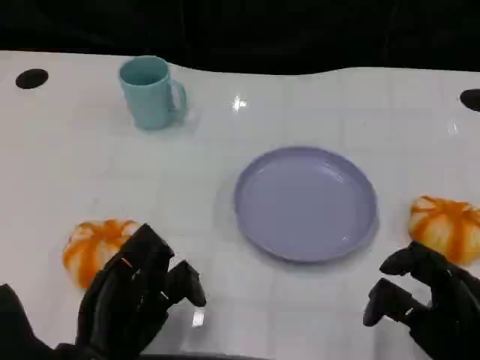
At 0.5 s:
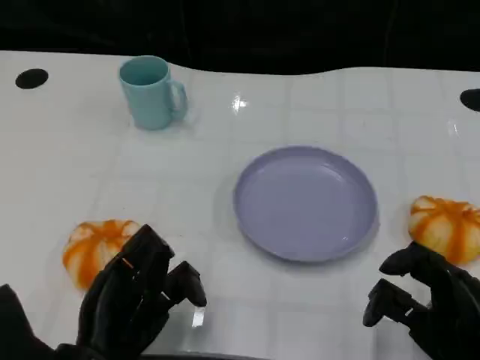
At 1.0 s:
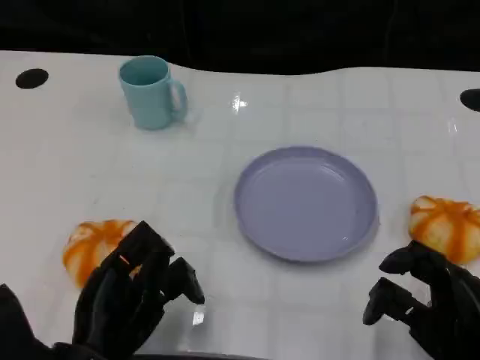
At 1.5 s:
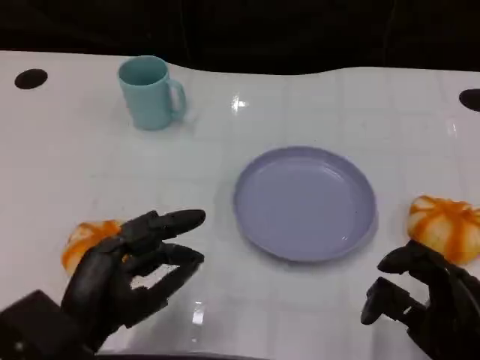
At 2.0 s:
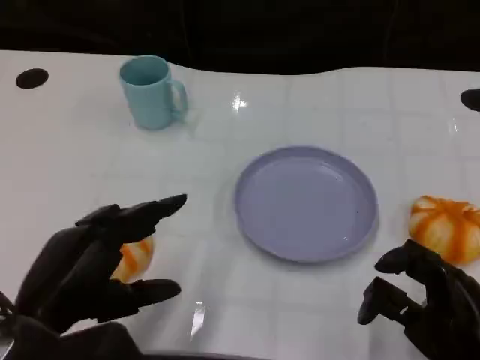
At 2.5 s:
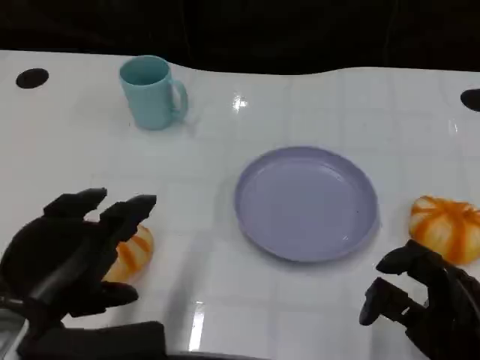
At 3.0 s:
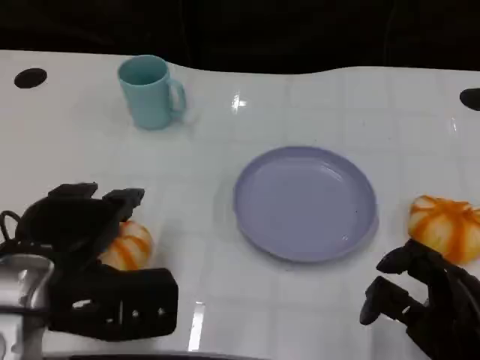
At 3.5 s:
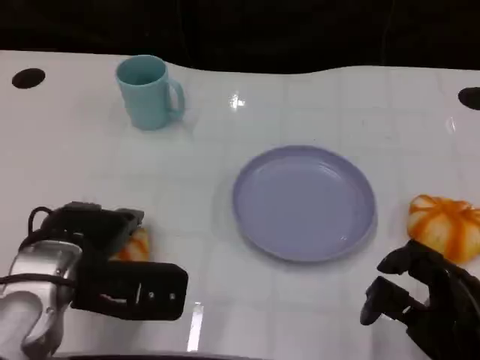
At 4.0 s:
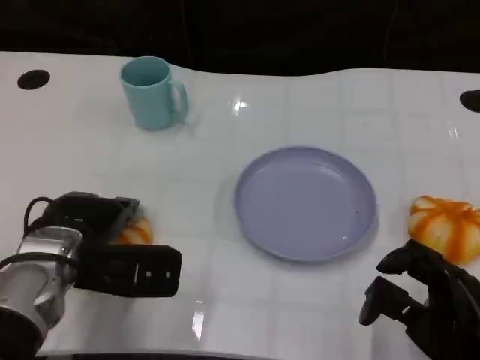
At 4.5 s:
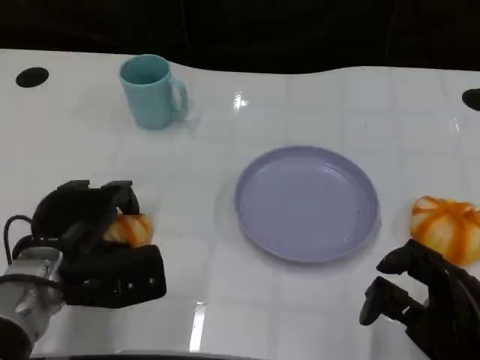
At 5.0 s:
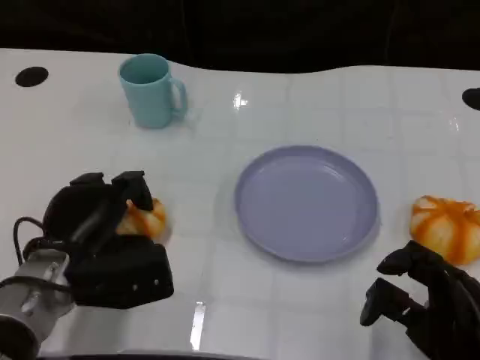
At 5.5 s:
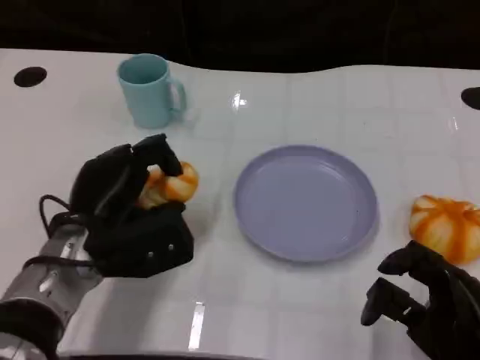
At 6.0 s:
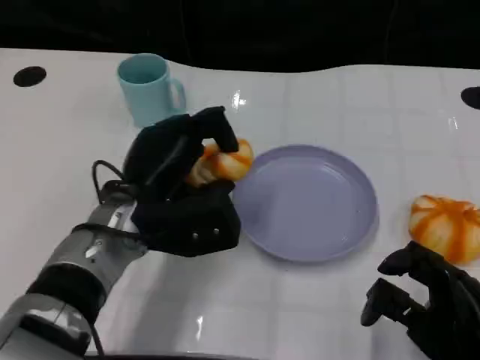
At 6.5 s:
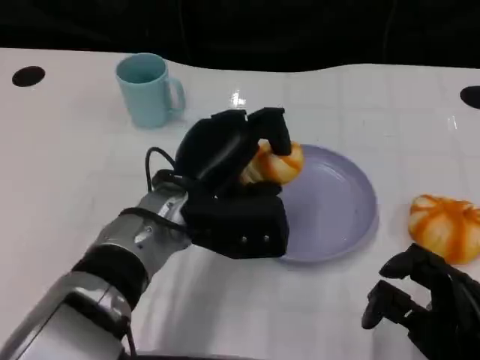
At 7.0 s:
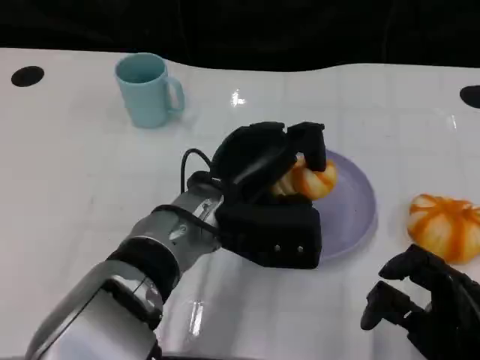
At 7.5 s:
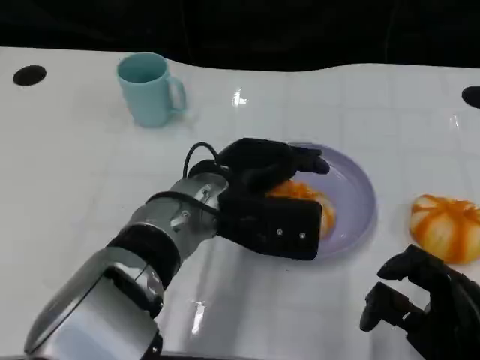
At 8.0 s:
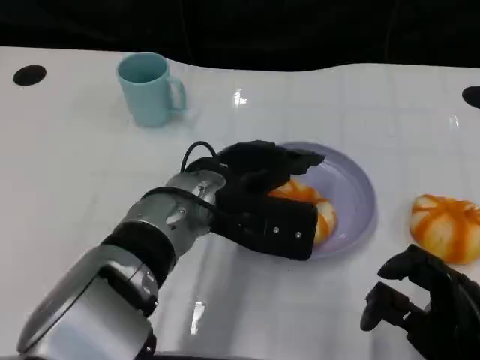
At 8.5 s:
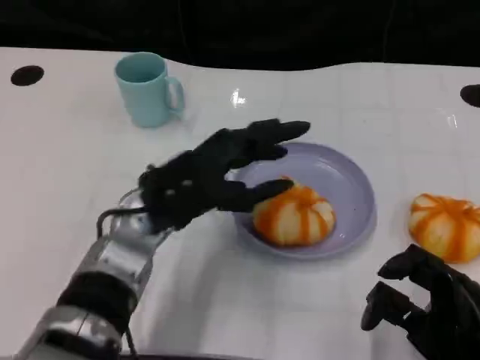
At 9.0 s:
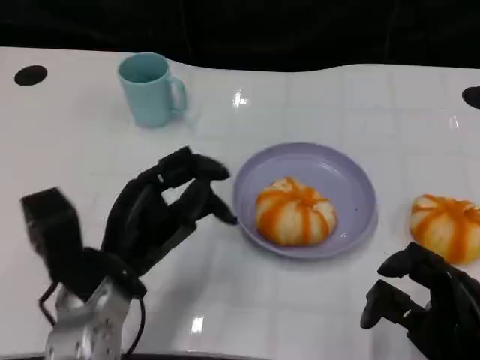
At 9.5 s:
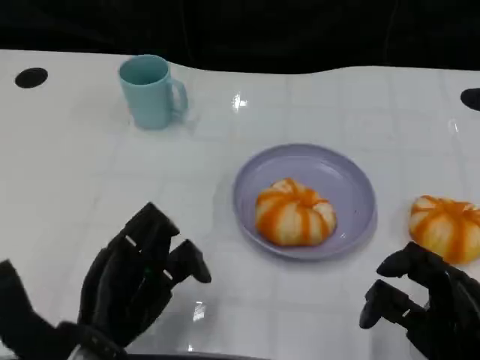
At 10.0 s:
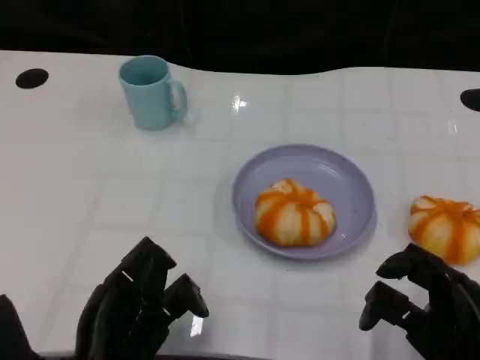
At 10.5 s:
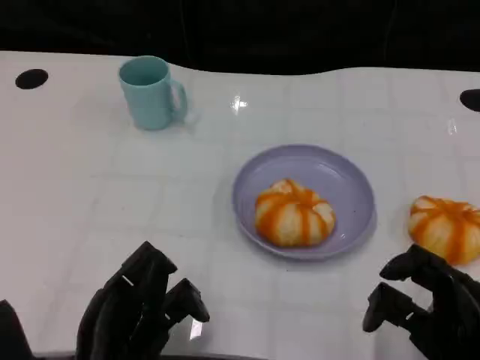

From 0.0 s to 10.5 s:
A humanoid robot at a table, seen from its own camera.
Task of the whole recording: Grasp the bread from the table and place it into the plate.
From 0.0 s to 2.0 s: The left hand is displaced upward by roughly 10 cm.
From 2.0 s to 4.0 s: The left hand heads forward, covering about 10 cm.
From 4.0 s to 6.5 s: The left hand travels to the right by roughly 10 cm.
From 8.5 s to 10.5 s: The left hand goes approximately 15 cm backward, downward and to the left.

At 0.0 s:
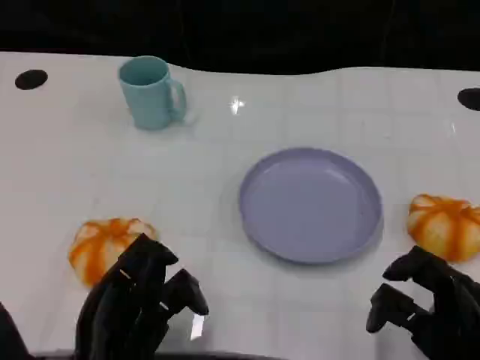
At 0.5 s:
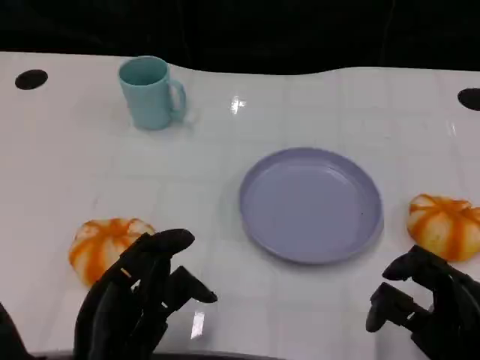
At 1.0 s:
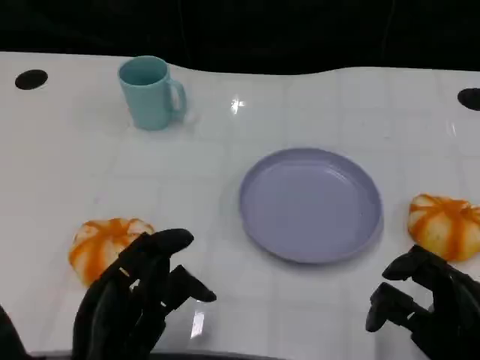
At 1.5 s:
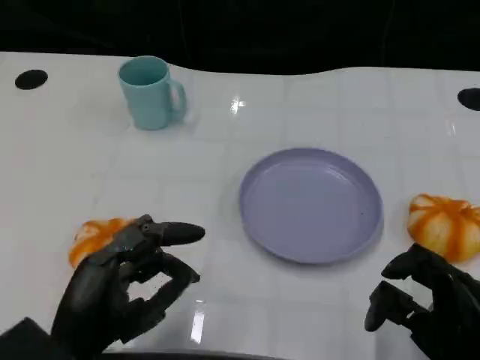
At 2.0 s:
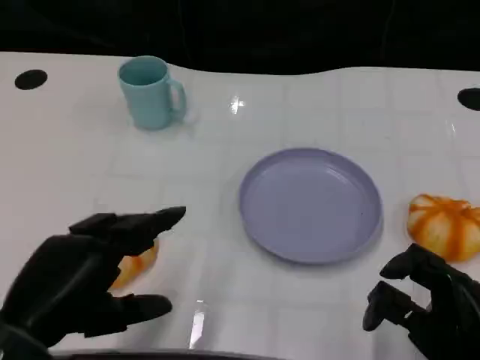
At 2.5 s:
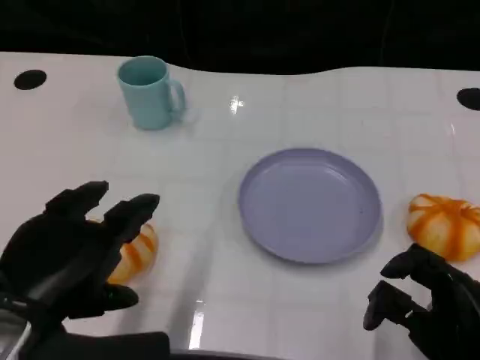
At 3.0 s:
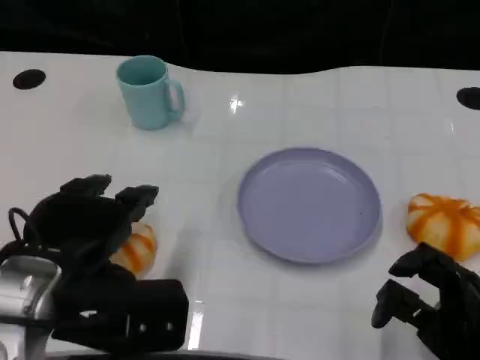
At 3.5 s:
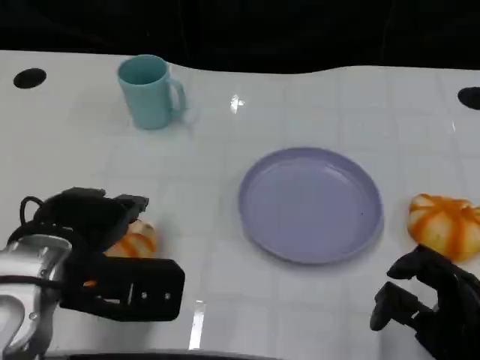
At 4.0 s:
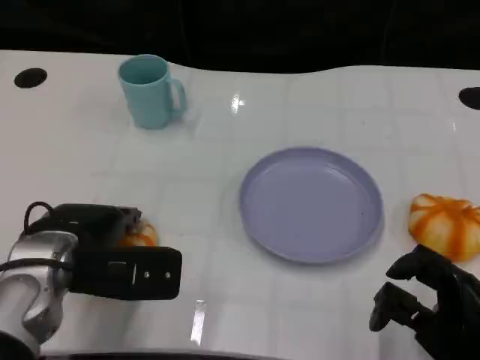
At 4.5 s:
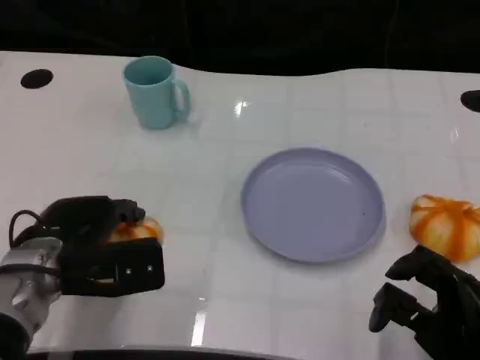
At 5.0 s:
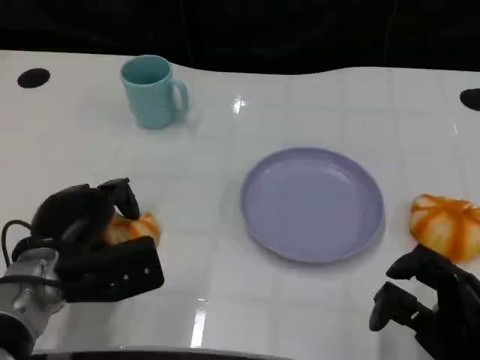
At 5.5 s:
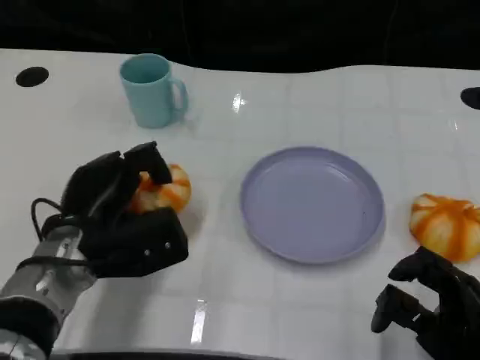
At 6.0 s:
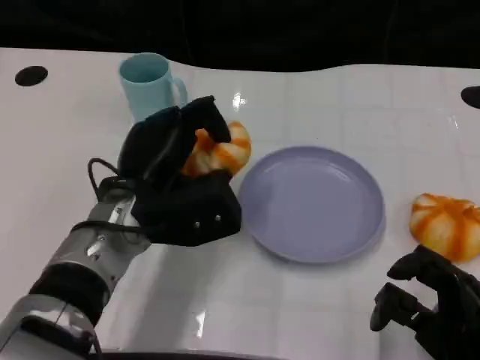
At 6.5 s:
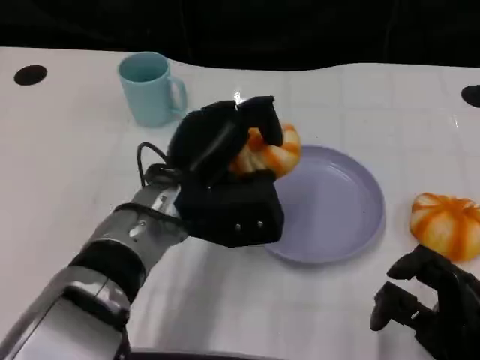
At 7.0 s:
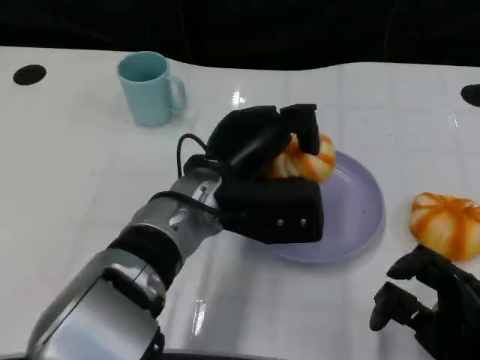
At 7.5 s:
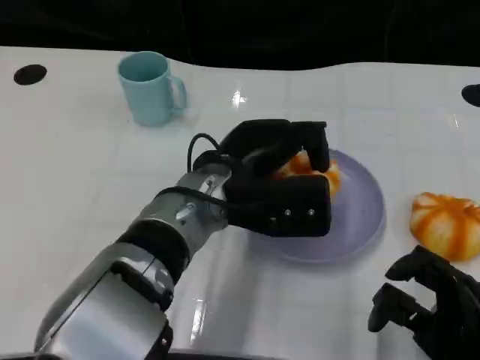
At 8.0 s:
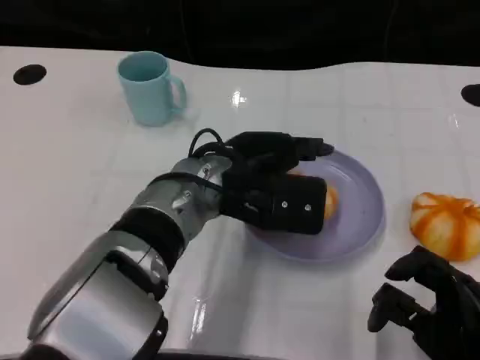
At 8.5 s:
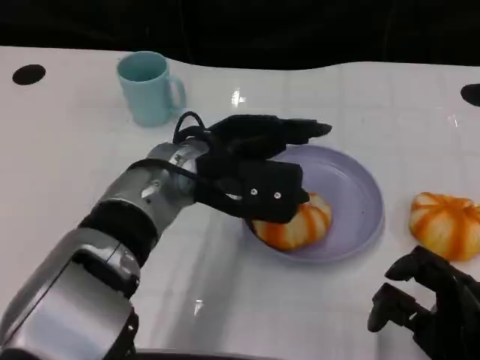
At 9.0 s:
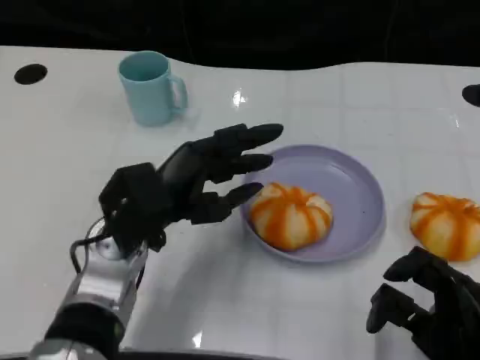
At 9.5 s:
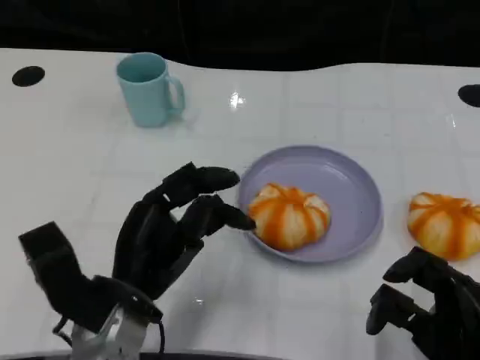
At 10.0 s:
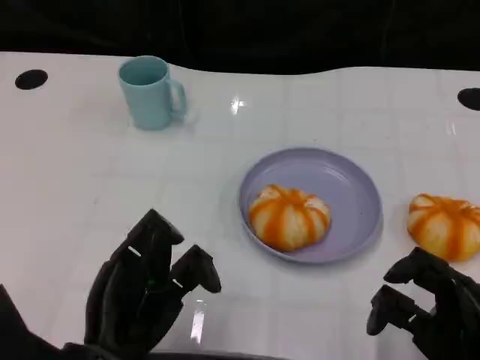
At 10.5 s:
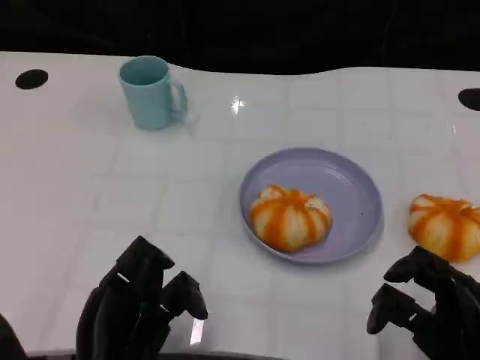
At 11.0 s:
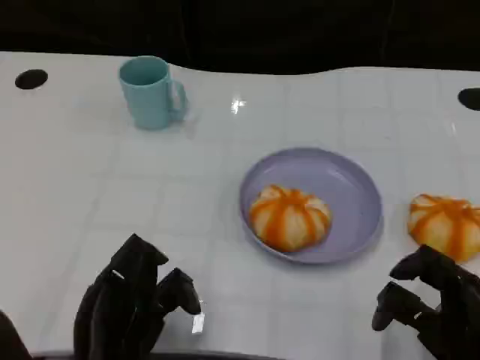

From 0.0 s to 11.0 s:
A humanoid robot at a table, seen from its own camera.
Task of the whole recording: Grasp the bread from the table and place it into the plate.
From 0.0 s to 2.0 s: The left hand shifts approximately 10 cm upward.
From 2.0 s to 3.5 s: The left hand travels forward by some 10 cm.
From 3.5 s to 5.5 s: The left hand shifts by approximately 5 cm.
From 5.5 s to 7.5 s: The left hand travels to the right and upward by some 15 cm.
From 7.5 s to 9.0 s: The left hand is displaced to the left by roughly 10 cm.
From 9.0 s to 11.0 s: The left hand is displaced backward and downward by roughly 15 cm.

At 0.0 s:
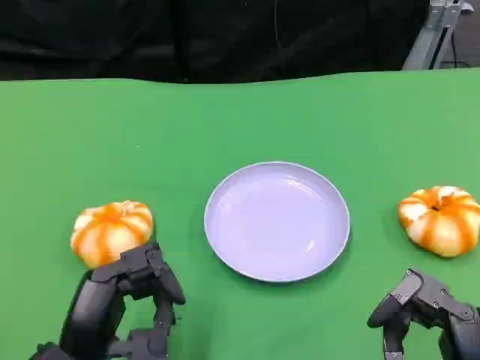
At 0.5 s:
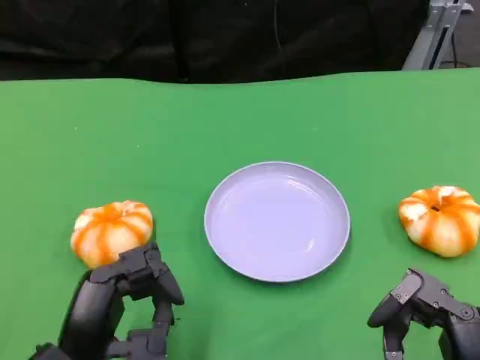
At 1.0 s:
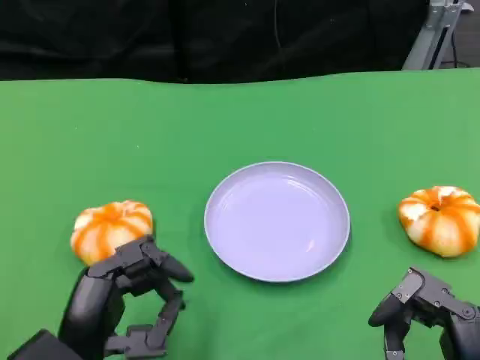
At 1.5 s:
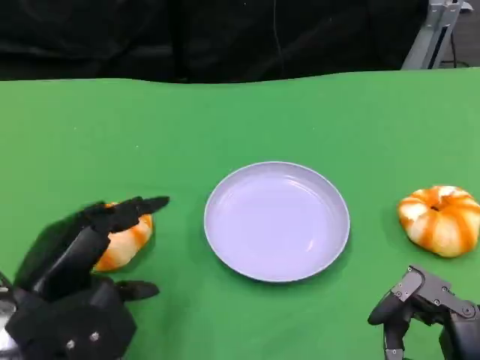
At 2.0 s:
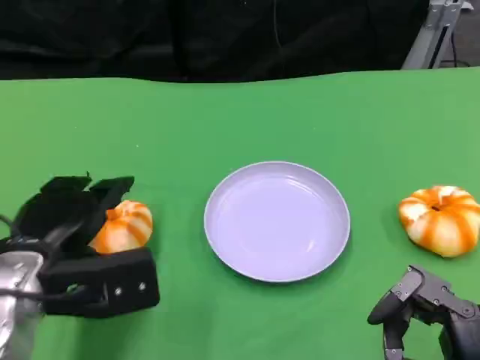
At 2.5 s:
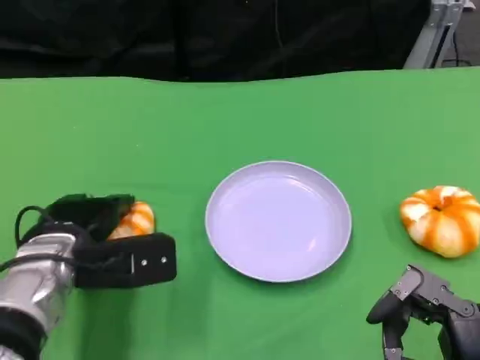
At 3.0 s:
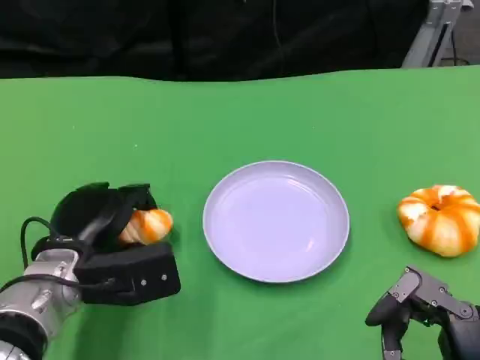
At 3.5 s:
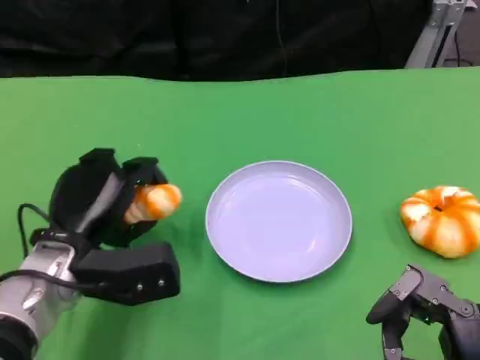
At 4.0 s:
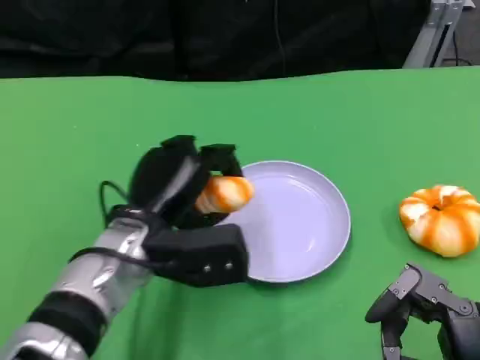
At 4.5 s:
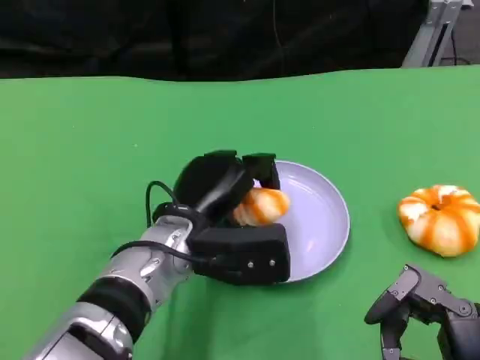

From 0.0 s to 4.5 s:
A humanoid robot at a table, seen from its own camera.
Task of the whole recording: Grasp the bread from the table and place it into the plate.
From 0.0 s to 2.0 s: The left hand goes some 10 cm forward.
From 2.0 s to 4.5 s: The left hand heads to the right, covering some 15 cm.
